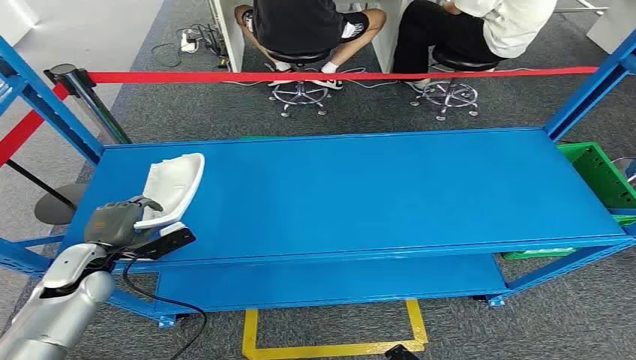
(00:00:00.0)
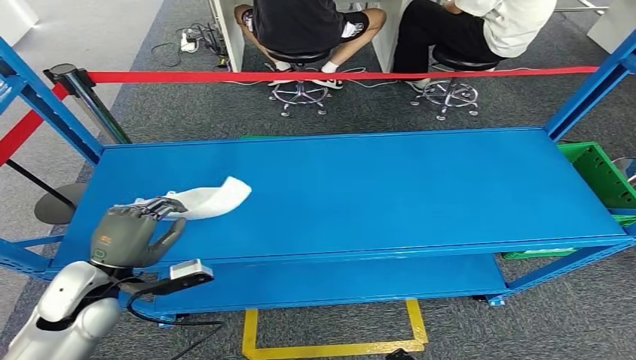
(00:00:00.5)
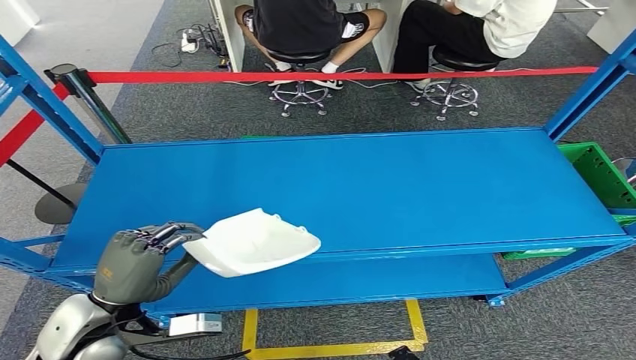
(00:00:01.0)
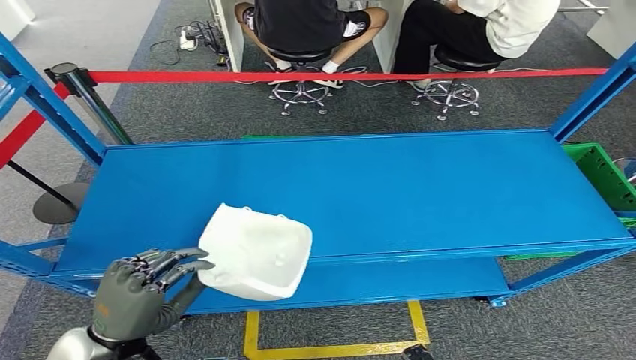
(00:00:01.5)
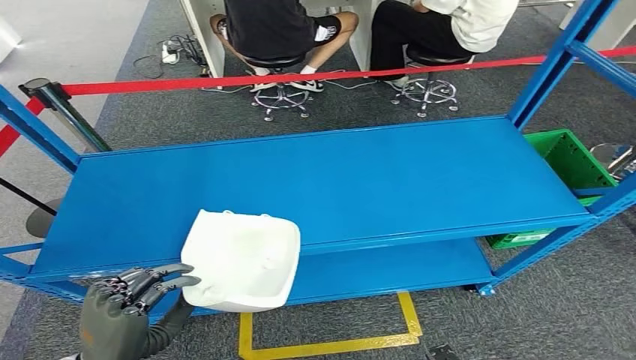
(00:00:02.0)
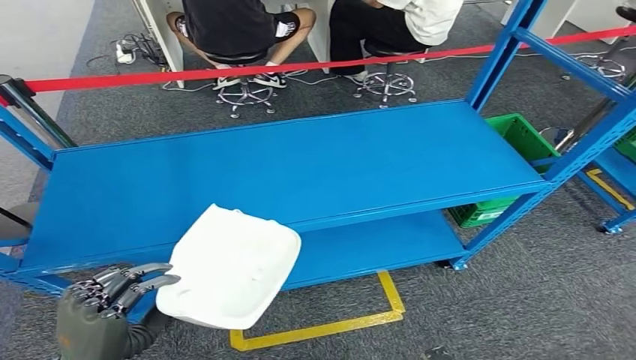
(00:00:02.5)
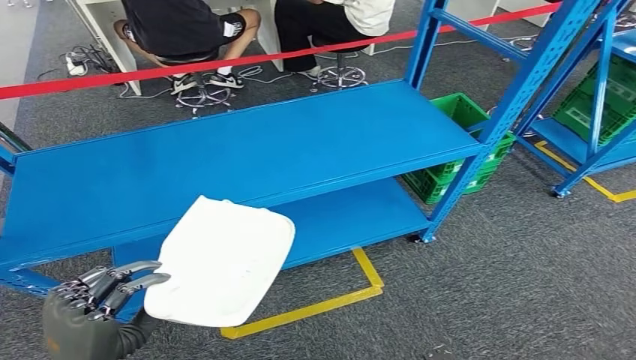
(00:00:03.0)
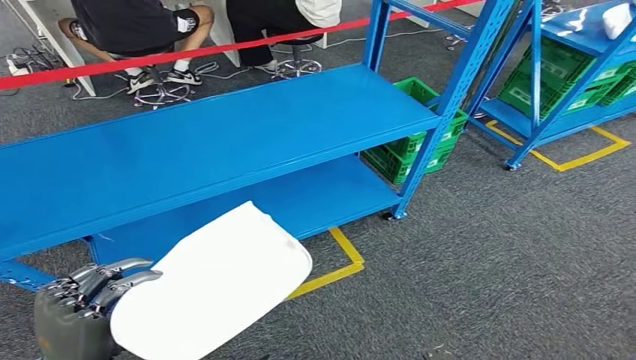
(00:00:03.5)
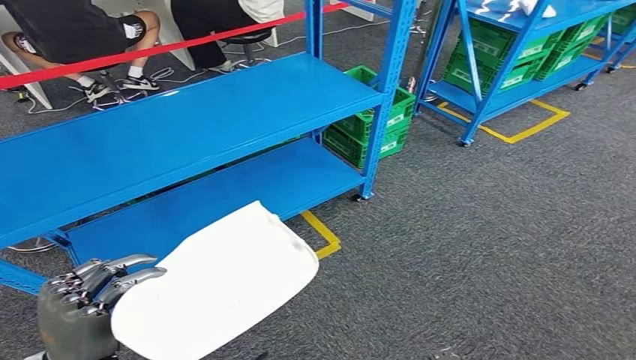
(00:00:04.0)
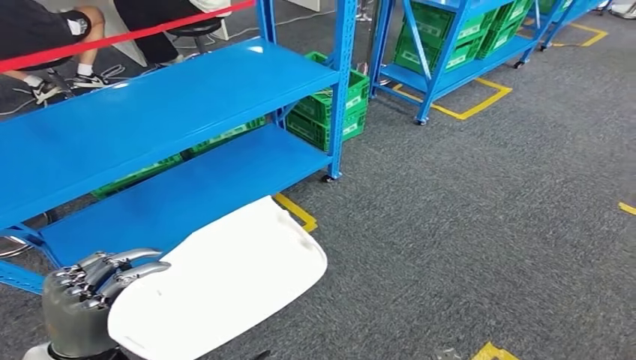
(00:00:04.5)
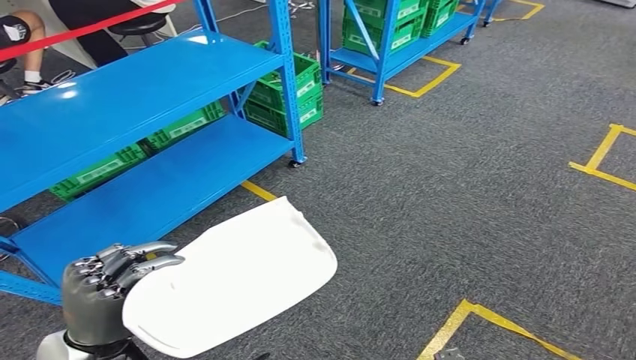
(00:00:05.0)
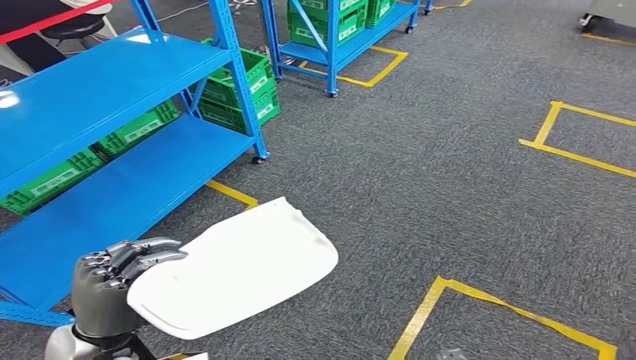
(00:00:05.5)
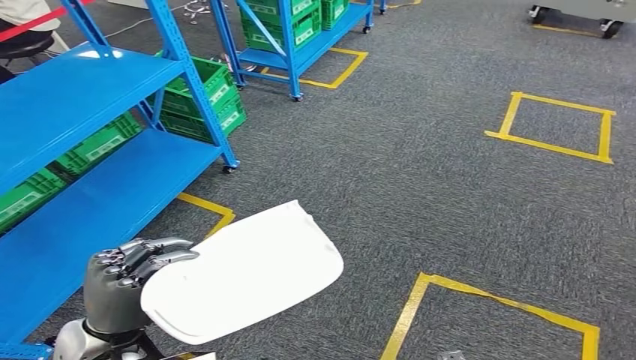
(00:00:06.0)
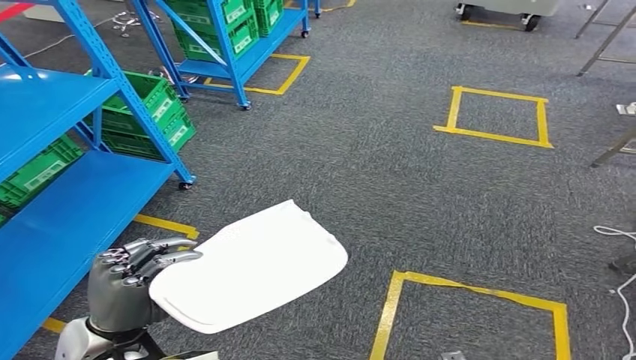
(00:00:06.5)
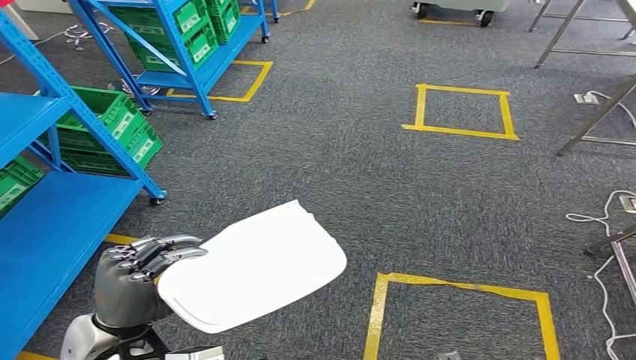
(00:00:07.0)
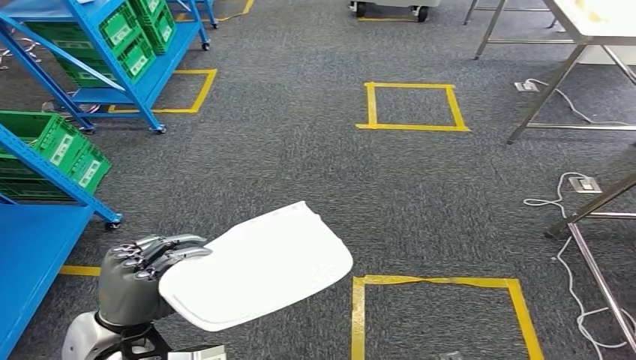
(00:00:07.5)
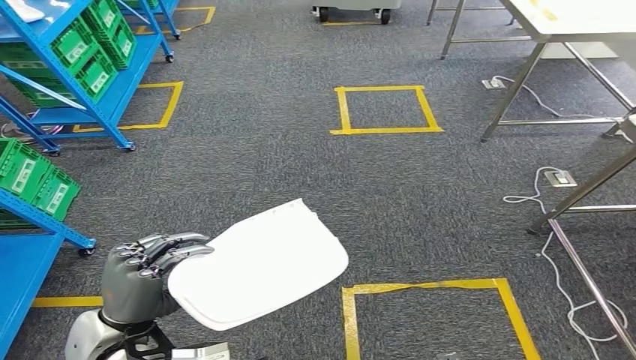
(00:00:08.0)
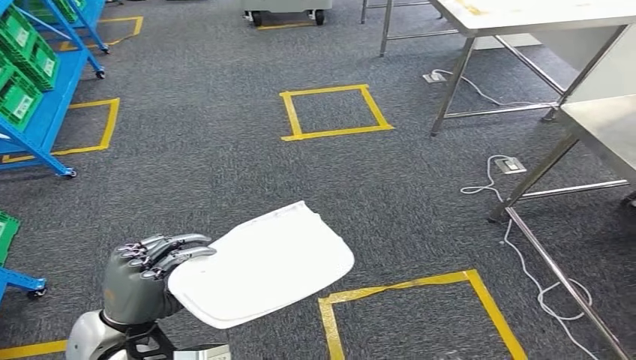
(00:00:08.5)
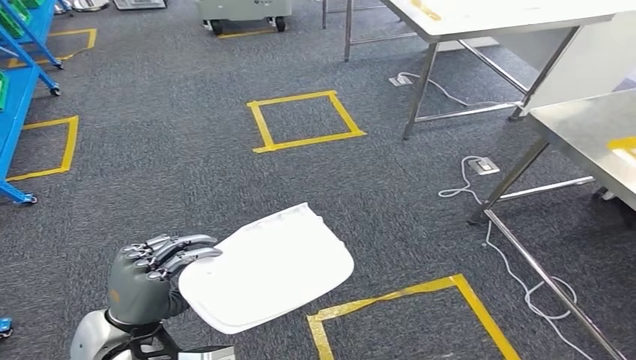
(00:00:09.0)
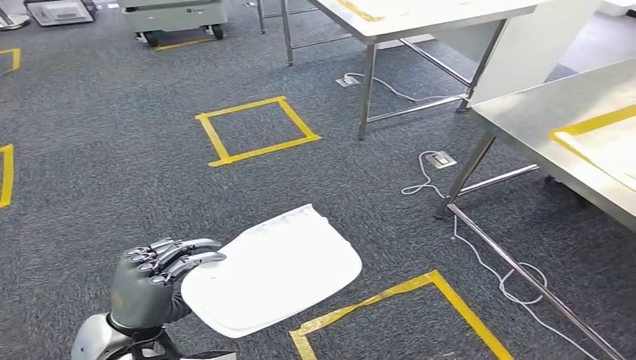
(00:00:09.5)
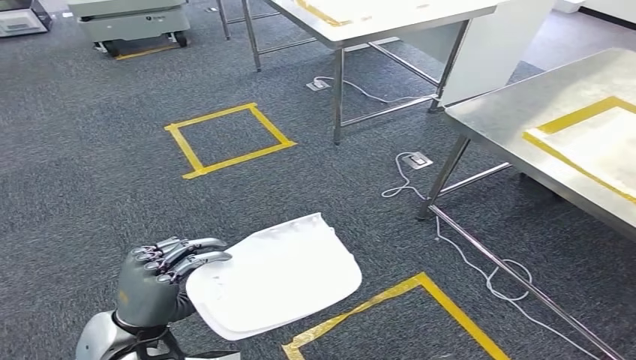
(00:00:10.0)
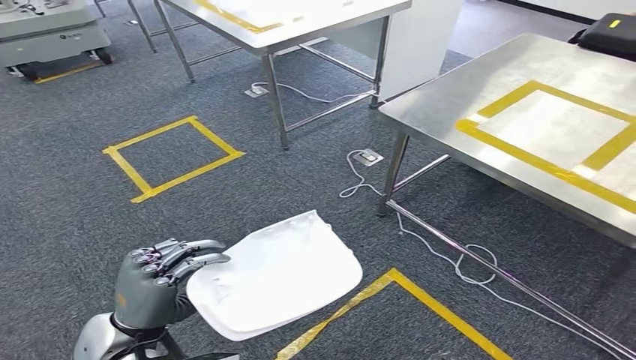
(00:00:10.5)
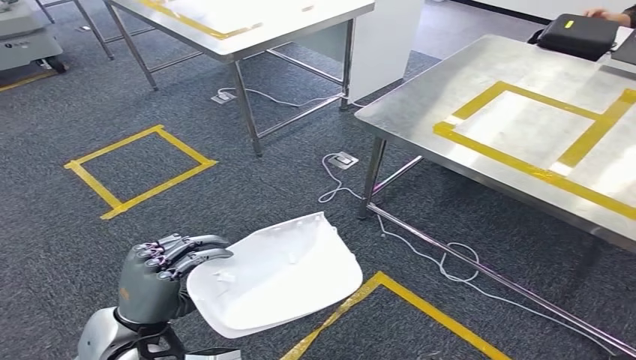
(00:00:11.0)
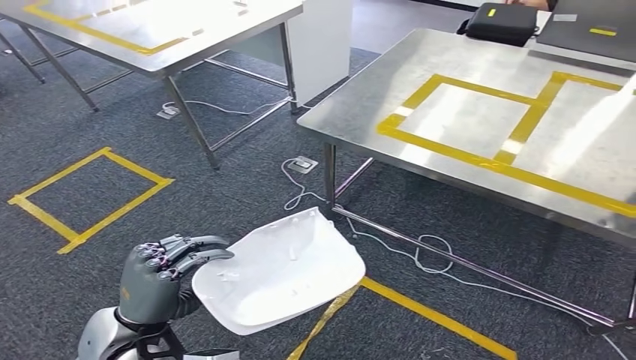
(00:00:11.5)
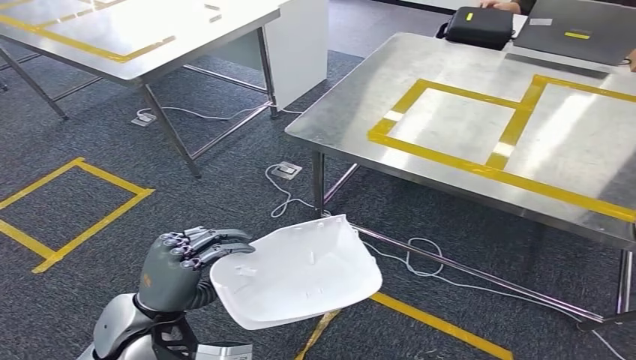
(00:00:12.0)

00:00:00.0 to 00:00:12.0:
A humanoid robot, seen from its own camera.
Step, 00:00:00.0 to 00:00:03.5: Pick up the small component from the shelf.
Step, 00:00:04.0 to 00:00:11.5: Move the small component to the workbench.

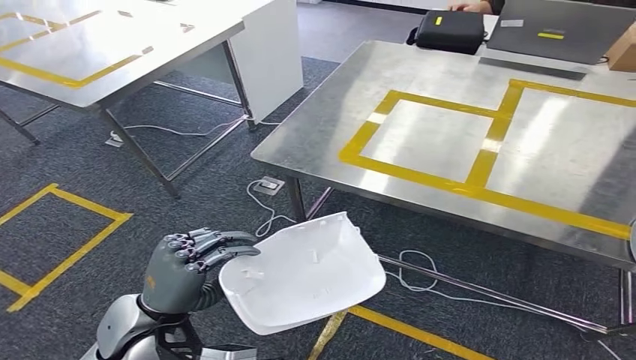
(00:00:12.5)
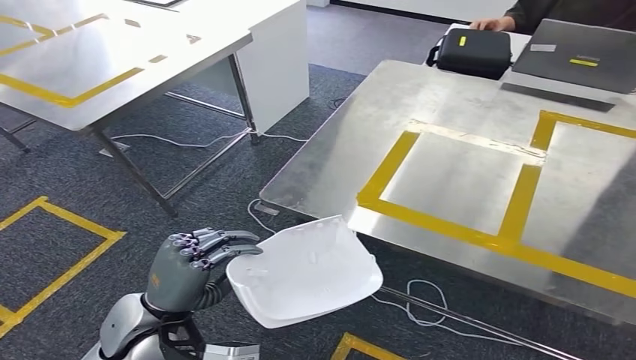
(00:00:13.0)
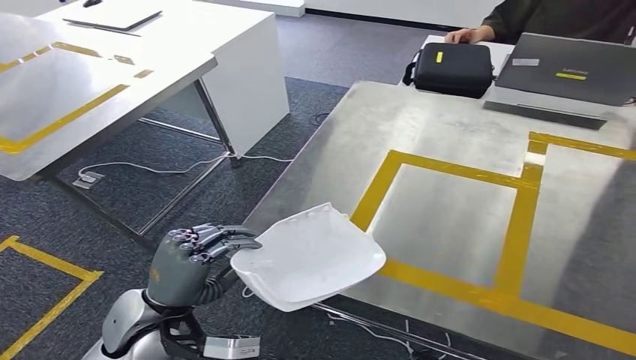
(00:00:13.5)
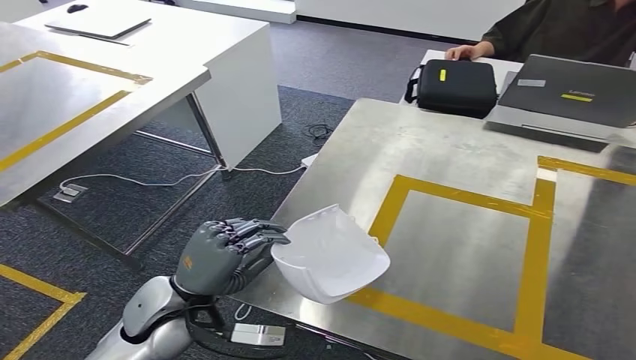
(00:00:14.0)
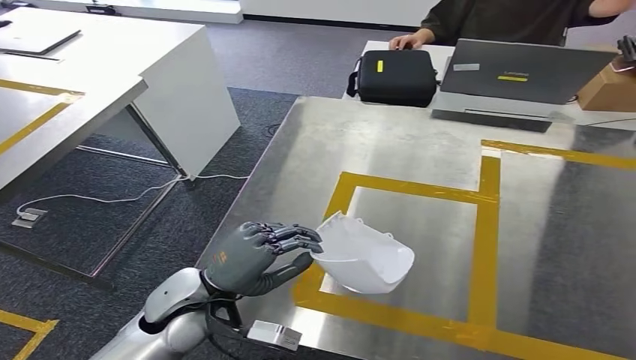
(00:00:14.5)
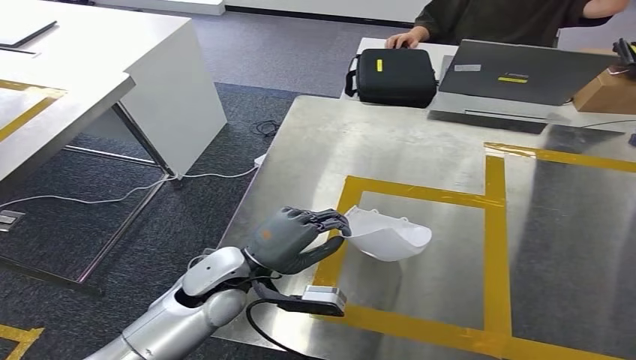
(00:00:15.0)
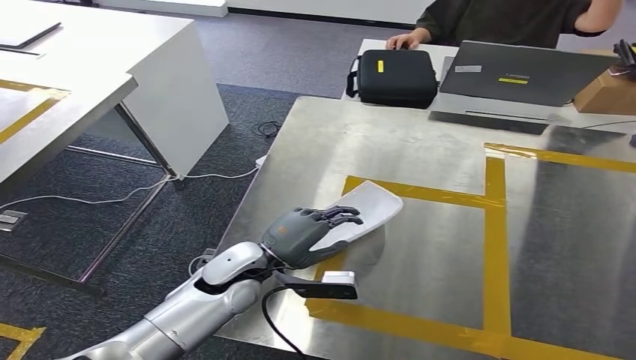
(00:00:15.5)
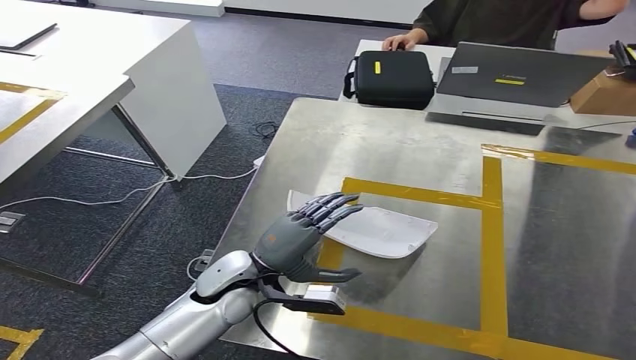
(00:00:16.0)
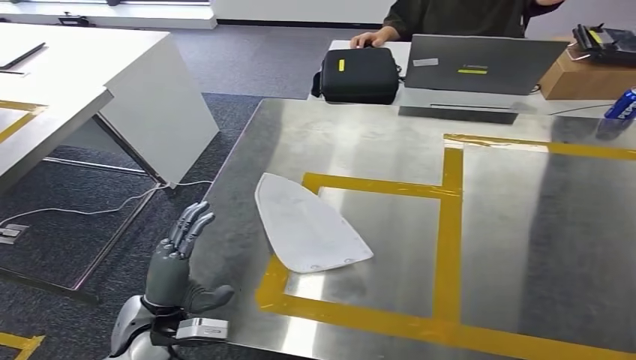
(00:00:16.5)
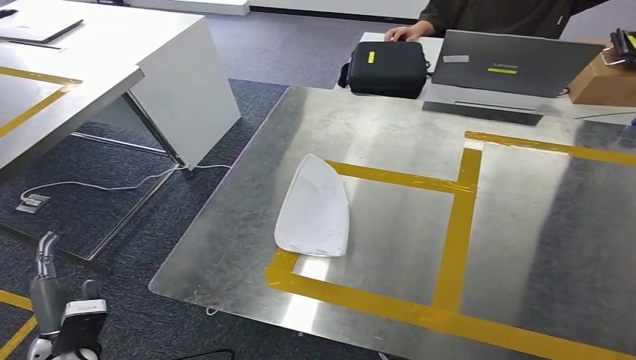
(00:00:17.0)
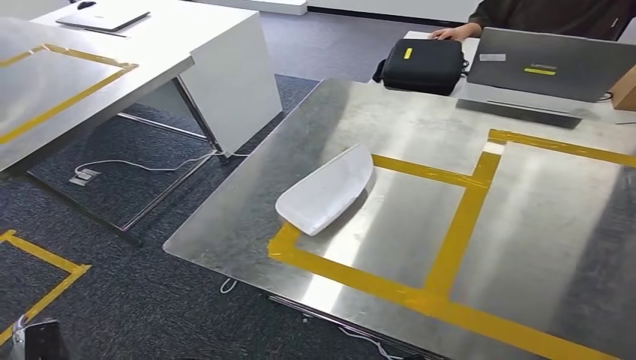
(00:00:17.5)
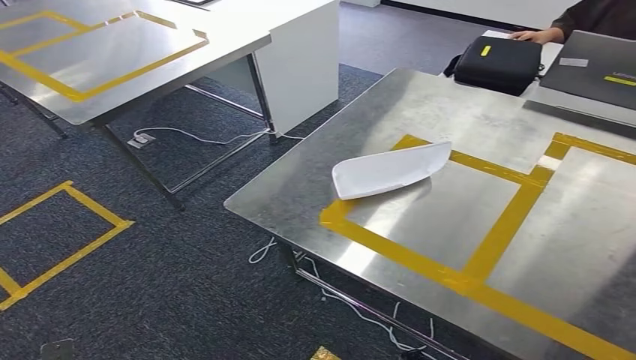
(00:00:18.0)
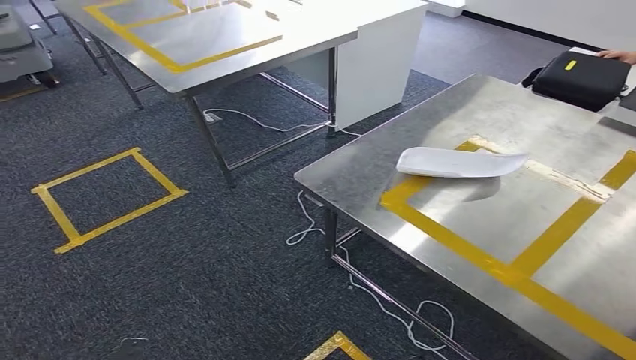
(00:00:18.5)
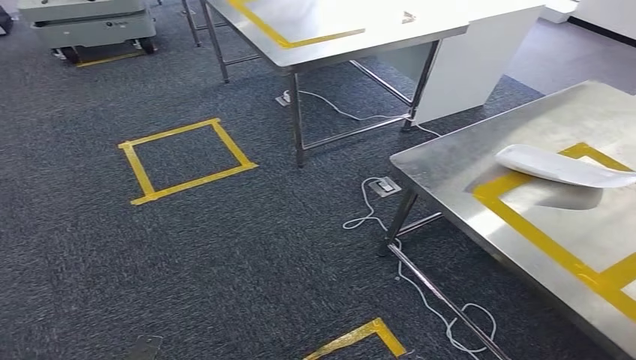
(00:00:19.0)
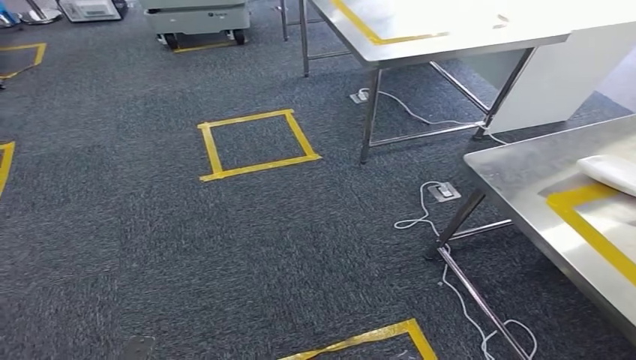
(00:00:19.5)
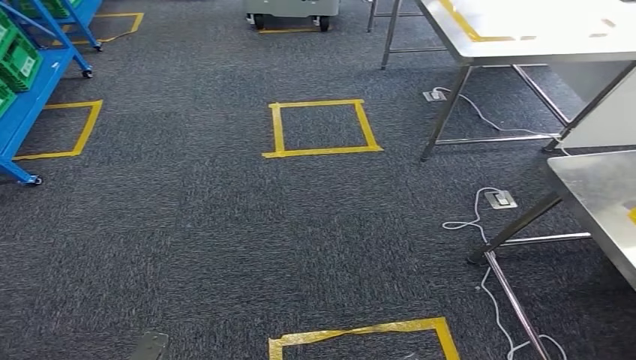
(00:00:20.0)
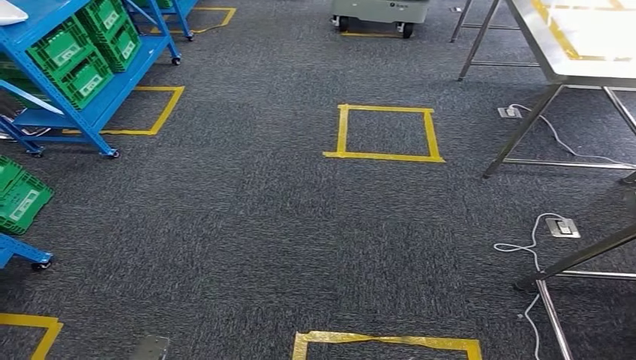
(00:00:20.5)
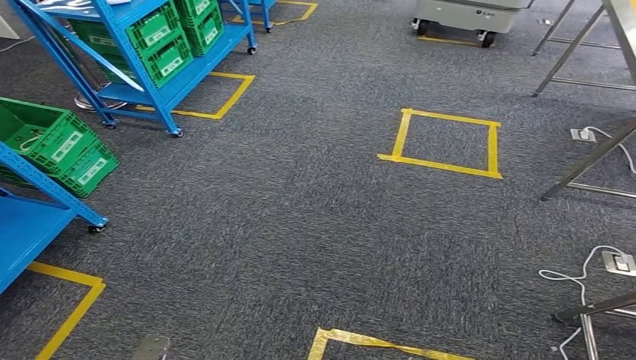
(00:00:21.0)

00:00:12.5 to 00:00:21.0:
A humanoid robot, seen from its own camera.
Step, 00:00:12.5 to 00:00:17.5: Insert the small component into the corresponding slot on the workbench.
